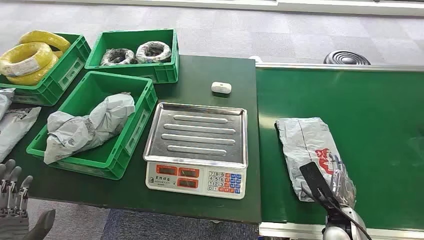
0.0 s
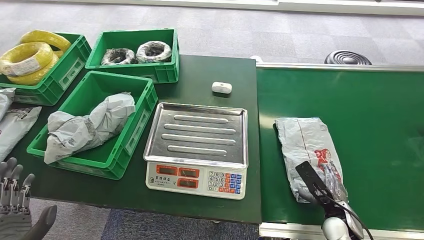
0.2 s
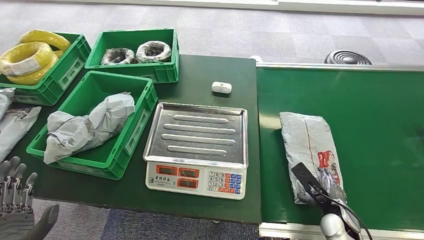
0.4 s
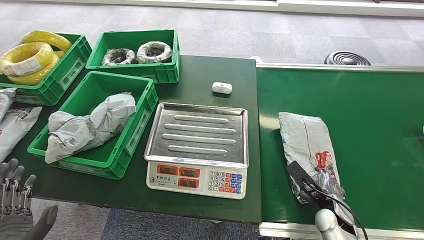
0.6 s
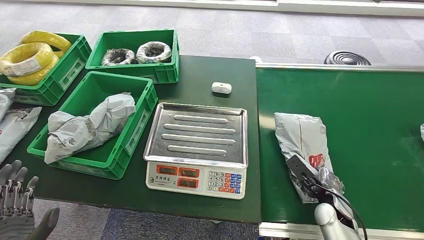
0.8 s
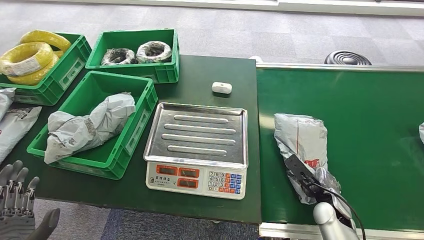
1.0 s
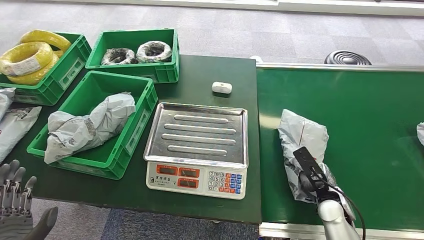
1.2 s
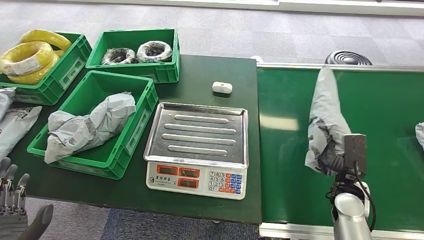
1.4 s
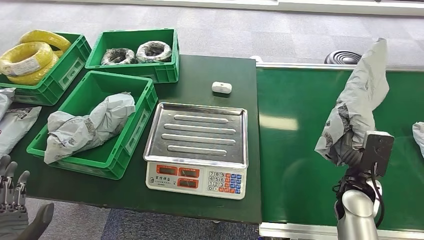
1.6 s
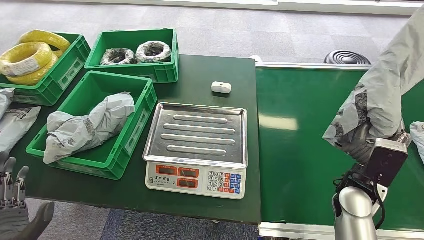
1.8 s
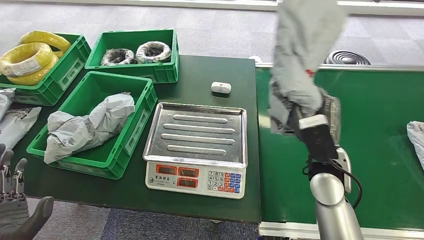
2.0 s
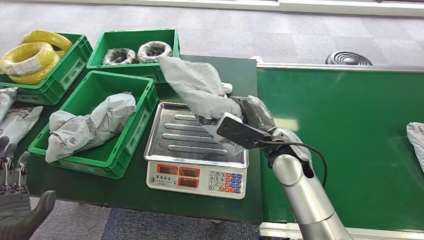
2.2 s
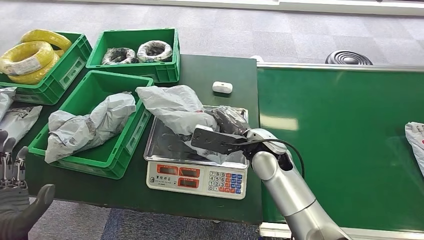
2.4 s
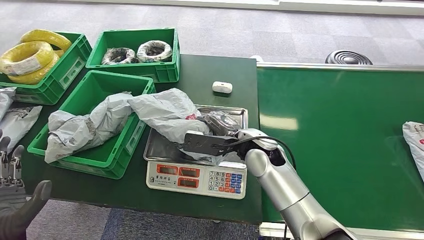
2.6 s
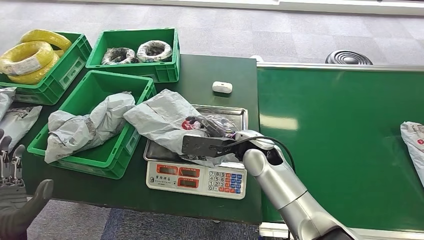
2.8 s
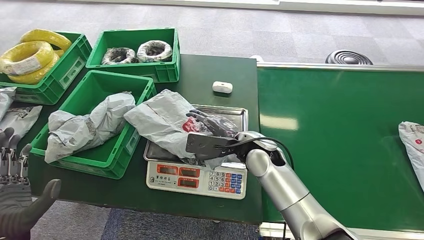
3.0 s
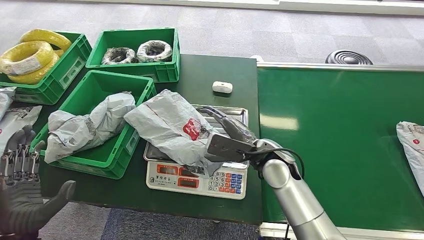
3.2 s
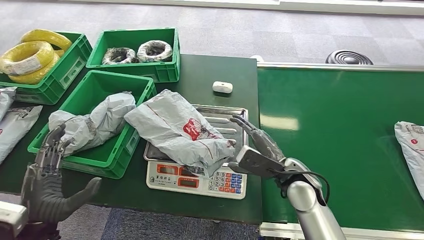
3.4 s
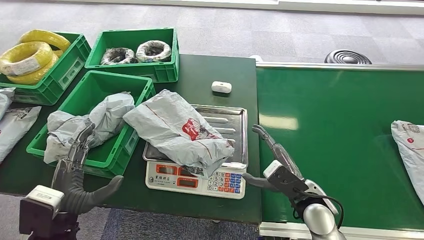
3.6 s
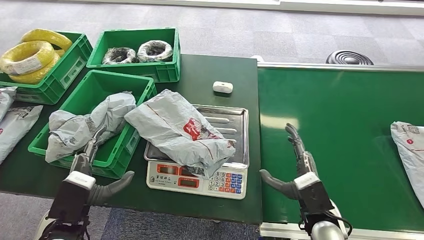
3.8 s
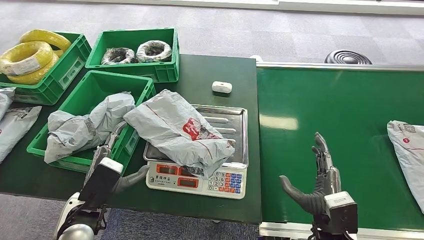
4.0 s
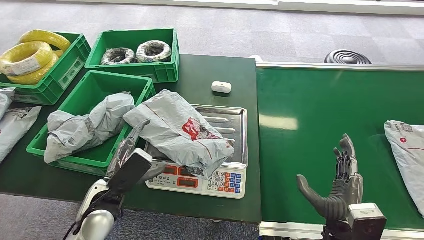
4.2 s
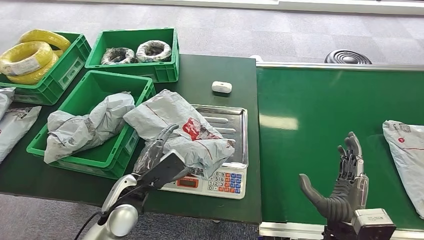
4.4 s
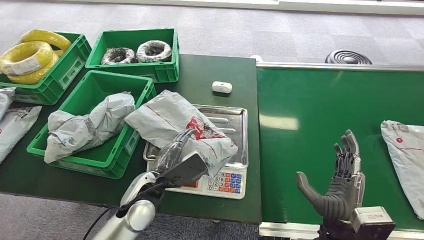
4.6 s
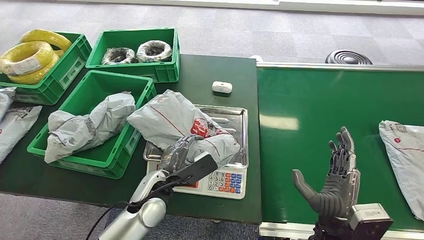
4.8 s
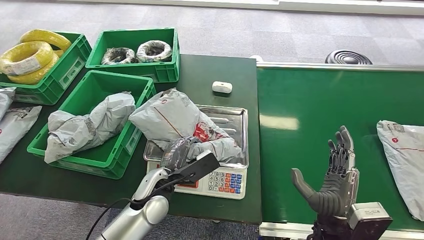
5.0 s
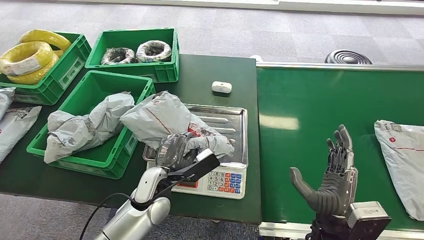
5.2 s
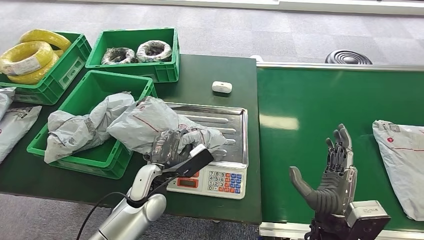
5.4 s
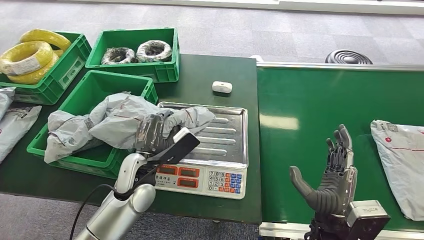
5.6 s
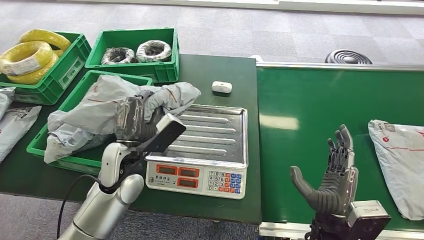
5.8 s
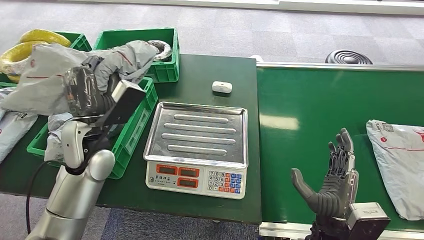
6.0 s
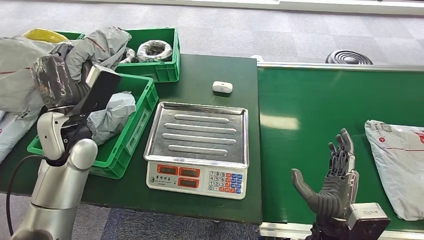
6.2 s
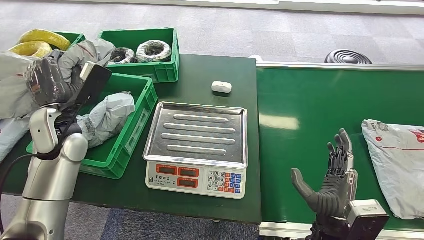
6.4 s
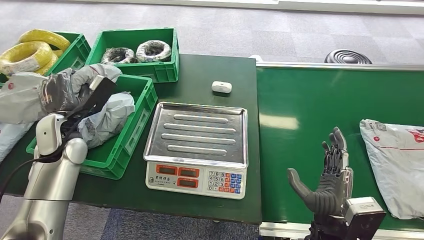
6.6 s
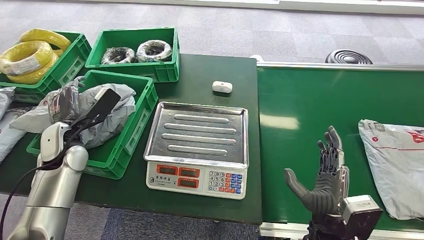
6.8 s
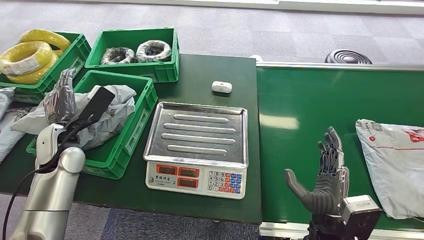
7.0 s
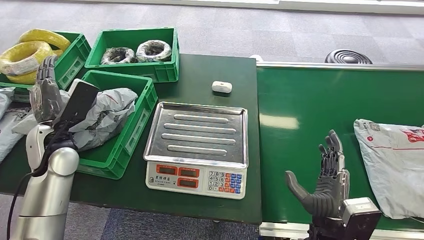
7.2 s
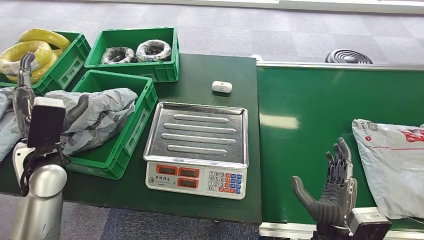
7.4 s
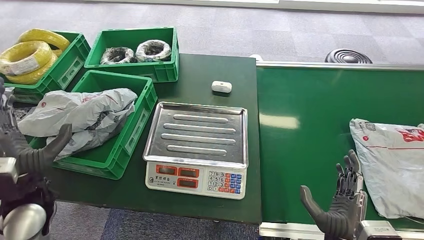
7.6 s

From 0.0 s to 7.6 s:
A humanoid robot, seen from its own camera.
Task of the whole recording: Weigh the package on the weighing device and place it in the left basket.
Step, from 0.0 s to 1.8 s: Pick up the package from the conveyor belt.
Step, from 2.0 s to 2.8 s: Place the package onto the inbound machine.
Step, from 3.2 s to 6.2 s: Pick up the package from the inbound machine.
Step, from 6.4 s to 7.6 s: Place the package into the parcel locker.
